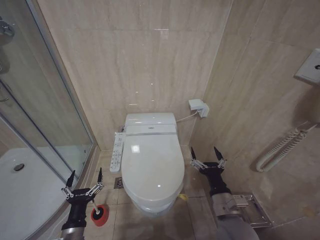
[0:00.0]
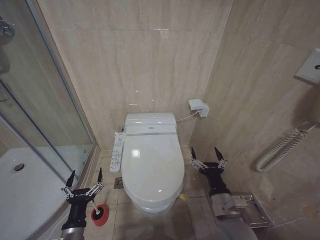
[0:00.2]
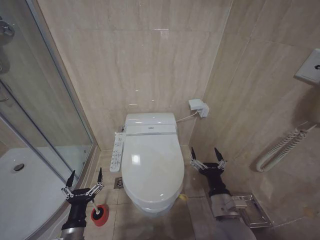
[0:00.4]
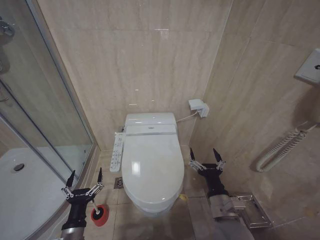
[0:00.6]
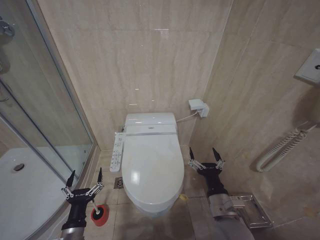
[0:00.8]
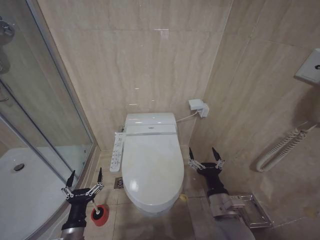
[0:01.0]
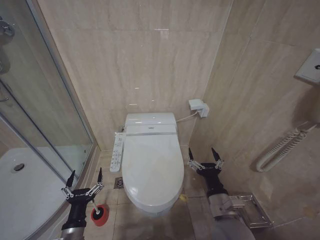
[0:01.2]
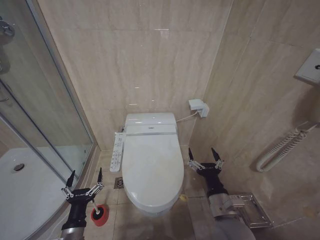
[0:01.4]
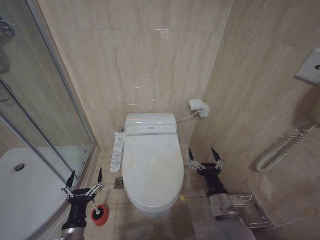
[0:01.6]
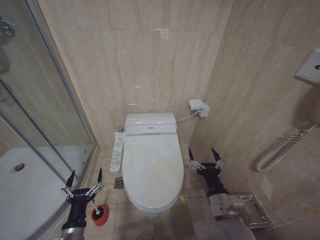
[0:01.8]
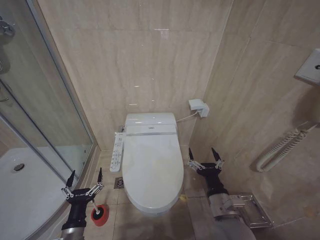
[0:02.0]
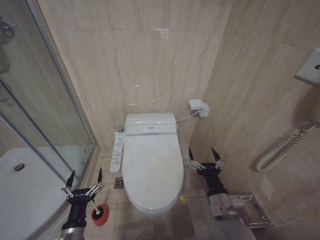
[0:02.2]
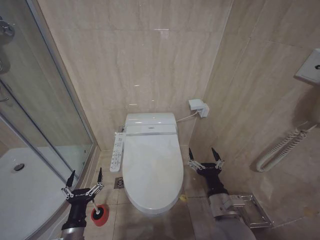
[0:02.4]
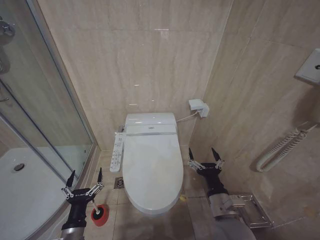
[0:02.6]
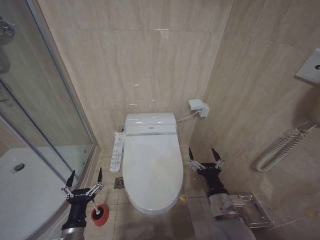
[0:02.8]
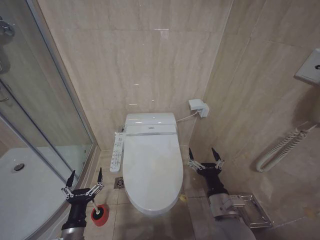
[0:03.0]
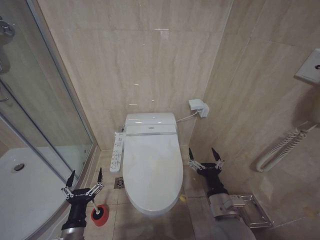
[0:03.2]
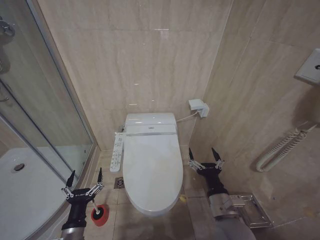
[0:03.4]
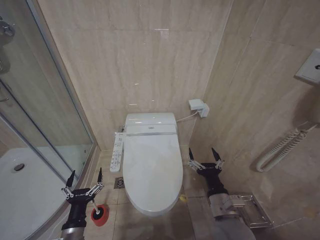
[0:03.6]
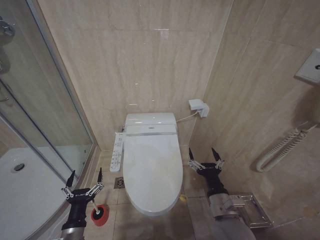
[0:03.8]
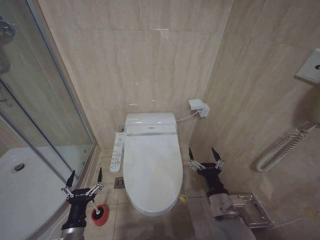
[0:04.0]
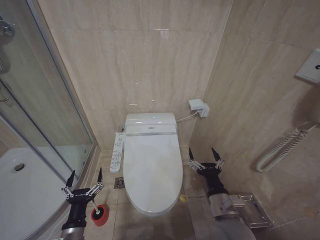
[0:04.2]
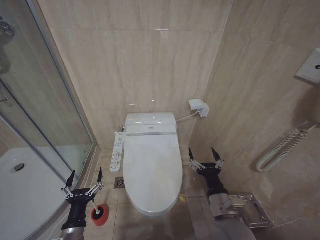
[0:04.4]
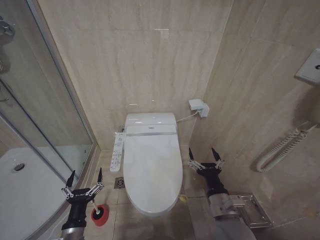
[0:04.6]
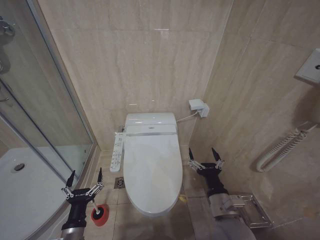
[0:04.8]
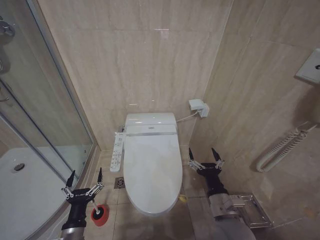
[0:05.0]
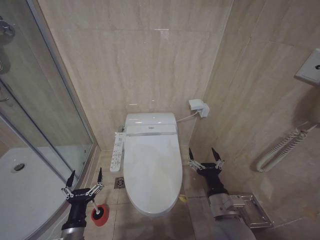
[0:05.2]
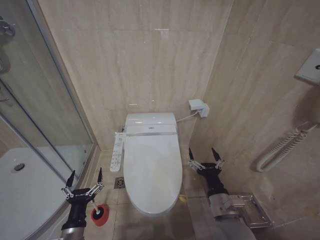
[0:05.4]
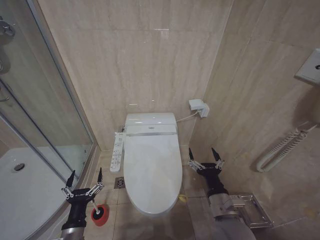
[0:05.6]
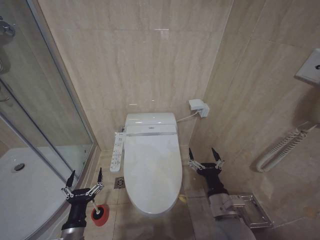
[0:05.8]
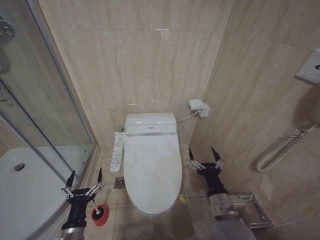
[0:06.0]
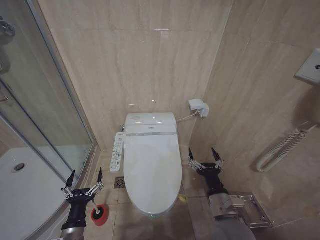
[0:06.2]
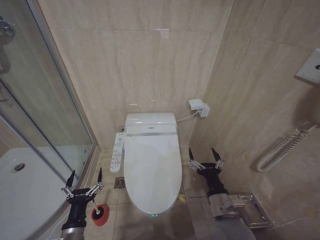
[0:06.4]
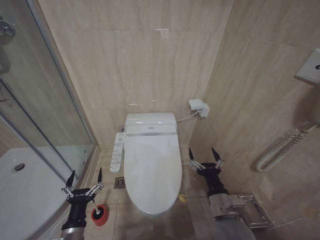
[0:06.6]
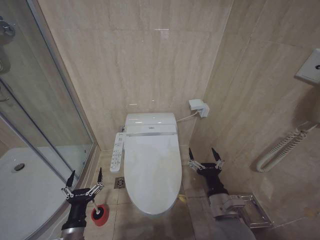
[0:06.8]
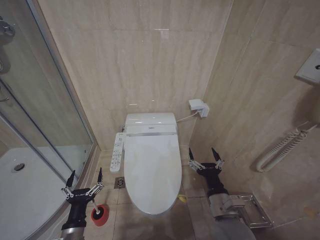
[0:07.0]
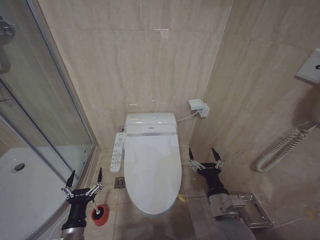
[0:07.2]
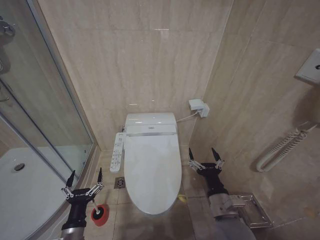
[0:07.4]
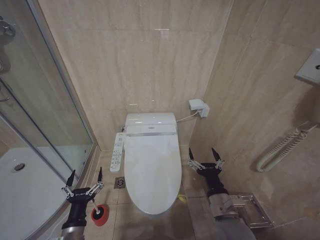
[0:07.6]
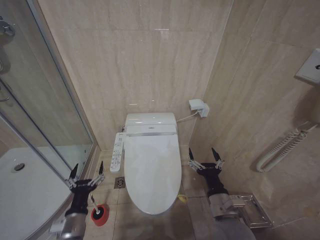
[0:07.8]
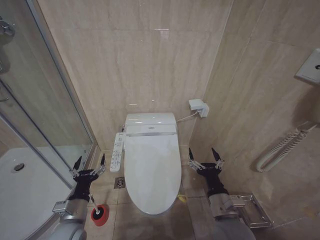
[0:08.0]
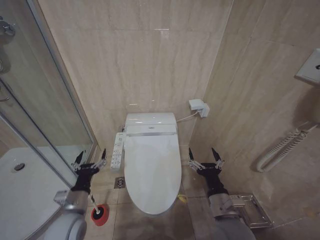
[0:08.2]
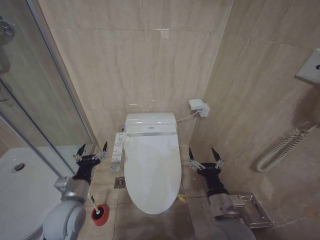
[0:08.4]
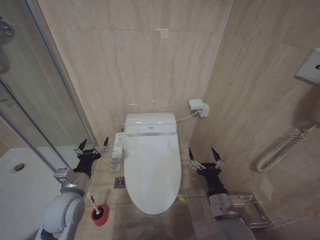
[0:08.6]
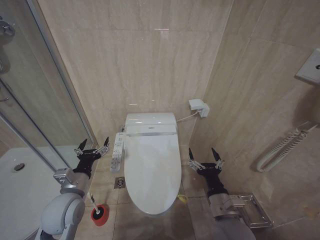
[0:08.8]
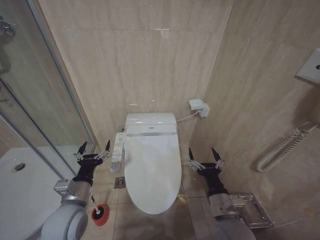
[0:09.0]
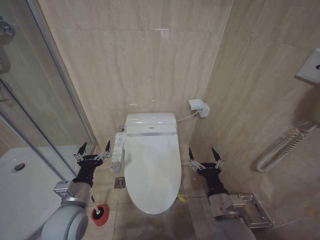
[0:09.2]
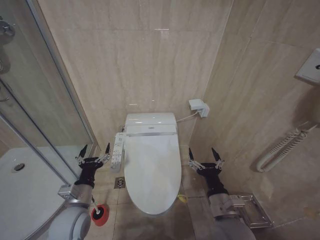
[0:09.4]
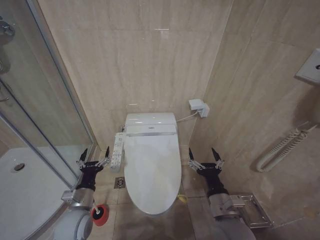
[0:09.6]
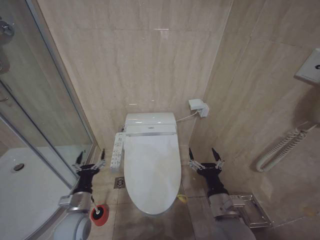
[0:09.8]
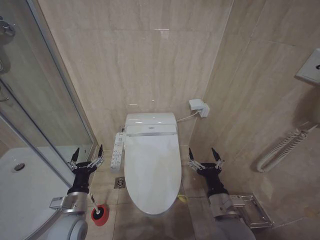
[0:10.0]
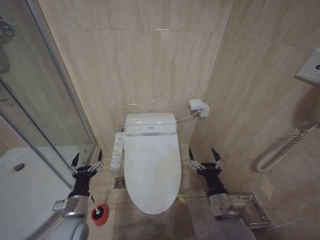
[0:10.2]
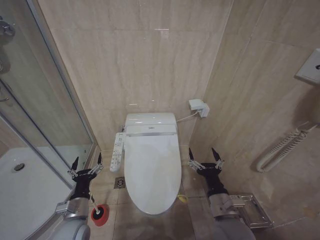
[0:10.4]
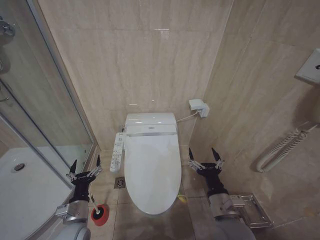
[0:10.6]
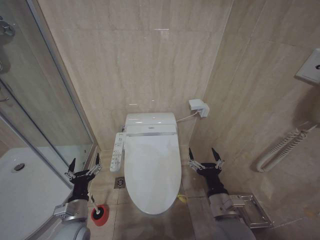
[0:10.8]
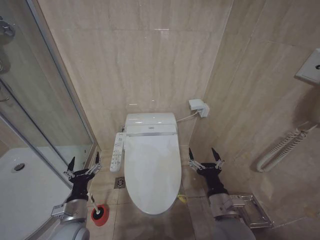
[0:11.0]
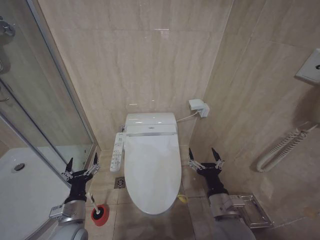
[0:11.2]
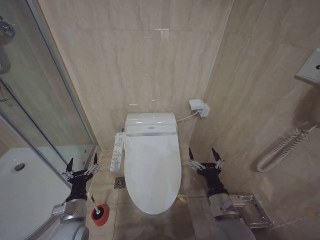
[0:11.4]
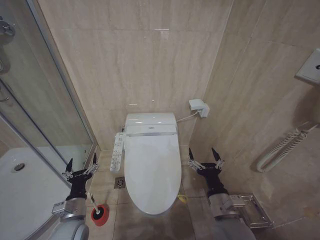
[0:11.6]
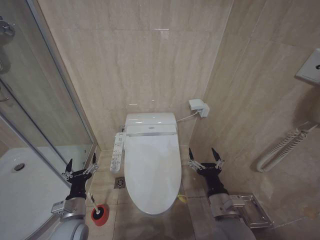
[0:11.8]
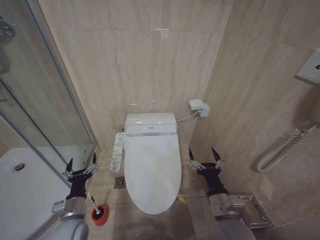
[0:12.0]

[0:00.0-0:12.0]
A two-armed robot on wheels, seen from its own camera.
Task of the whole recording: Open the toilet lid, clean the toilet bowl with a toilet brush, close the toilet lid, and flush.
0:00.0 to 0:07.6: Both grippers stay about where they are.
0:07.6 to 0:09.0: The left gripper goes roughly 15 cm upward and forward.
0:09.0 to 0:10.4: The left gripper travels downward by about 10 cm.
0:10.4 to 0:12.0: The grippers stay close to where they were, moving slightly.

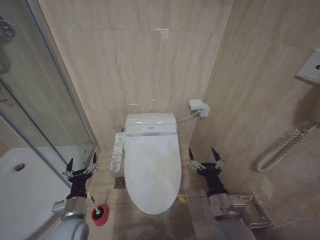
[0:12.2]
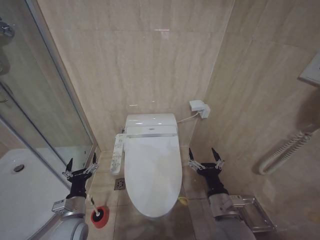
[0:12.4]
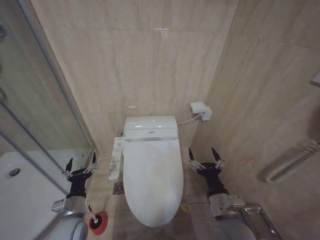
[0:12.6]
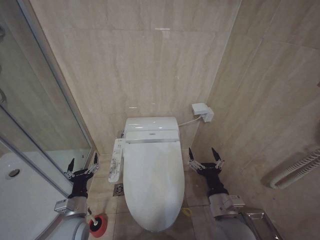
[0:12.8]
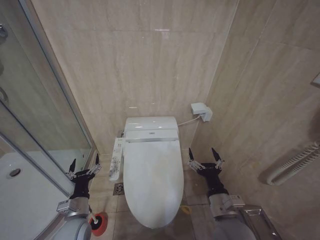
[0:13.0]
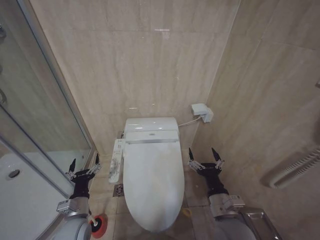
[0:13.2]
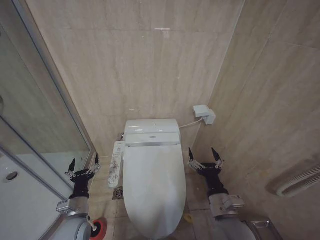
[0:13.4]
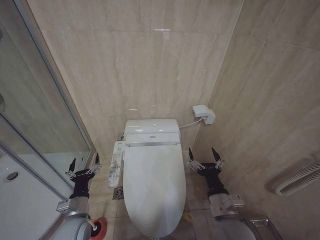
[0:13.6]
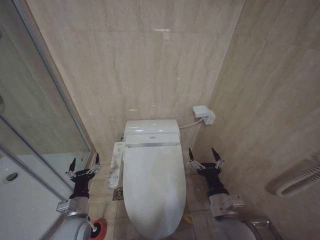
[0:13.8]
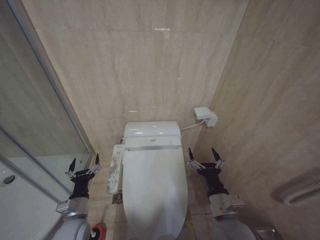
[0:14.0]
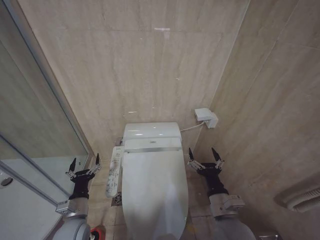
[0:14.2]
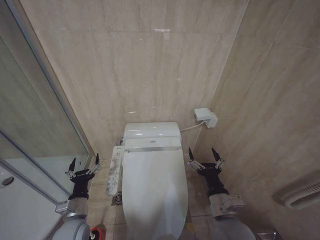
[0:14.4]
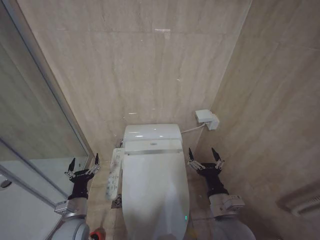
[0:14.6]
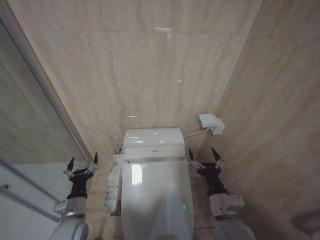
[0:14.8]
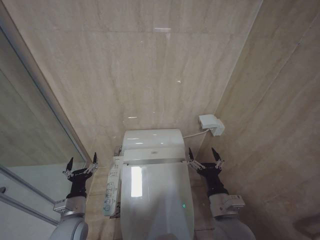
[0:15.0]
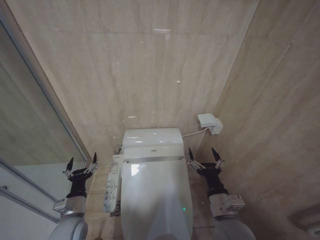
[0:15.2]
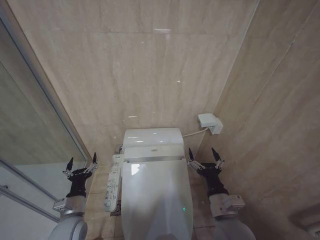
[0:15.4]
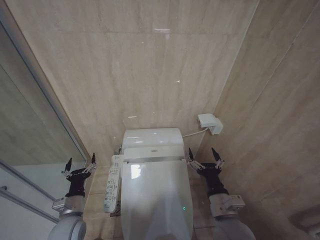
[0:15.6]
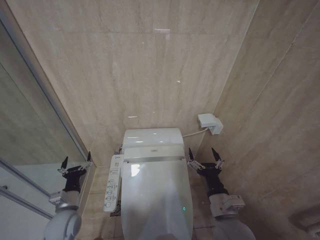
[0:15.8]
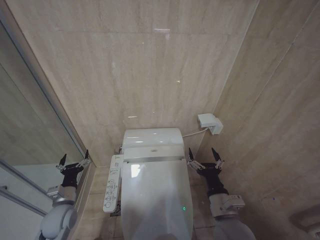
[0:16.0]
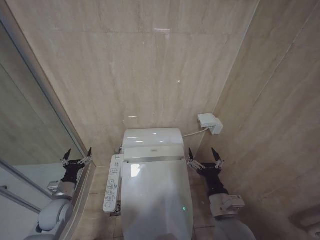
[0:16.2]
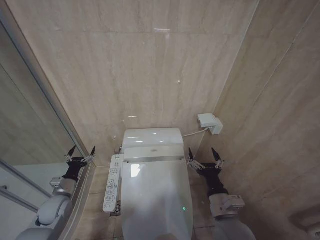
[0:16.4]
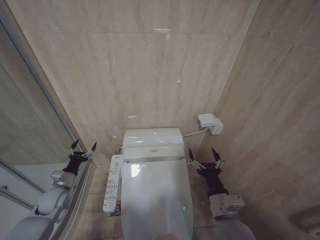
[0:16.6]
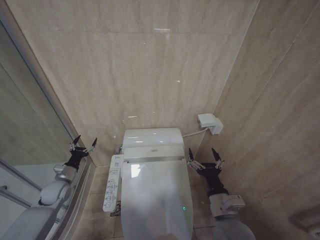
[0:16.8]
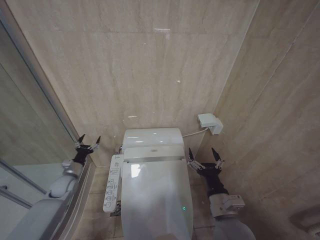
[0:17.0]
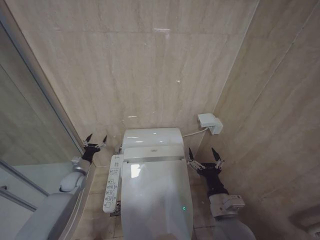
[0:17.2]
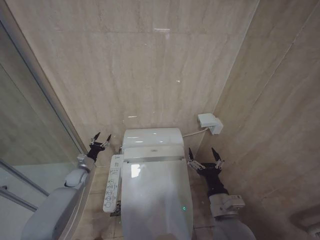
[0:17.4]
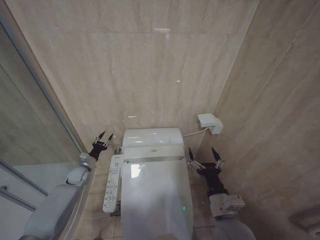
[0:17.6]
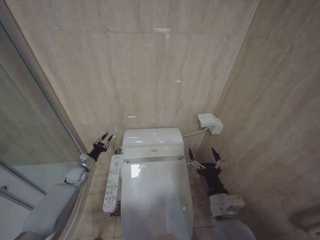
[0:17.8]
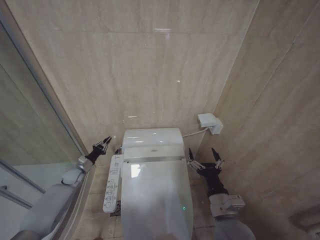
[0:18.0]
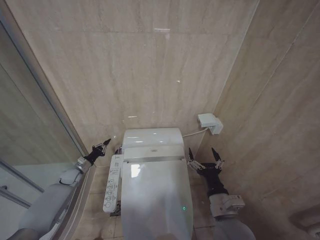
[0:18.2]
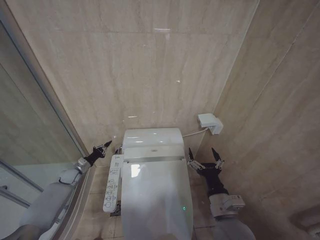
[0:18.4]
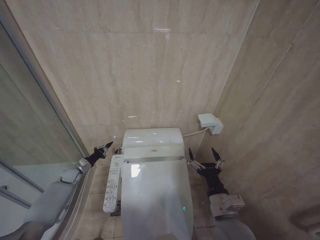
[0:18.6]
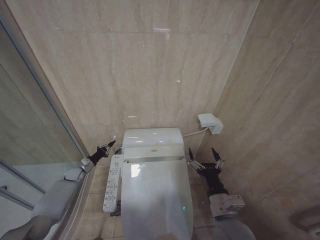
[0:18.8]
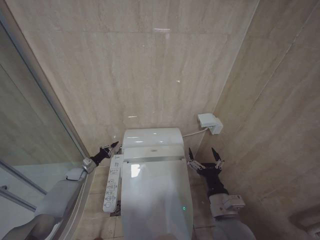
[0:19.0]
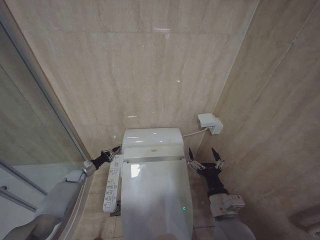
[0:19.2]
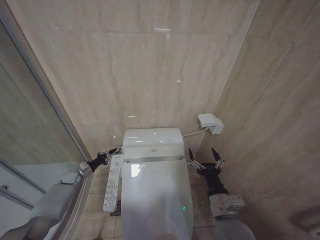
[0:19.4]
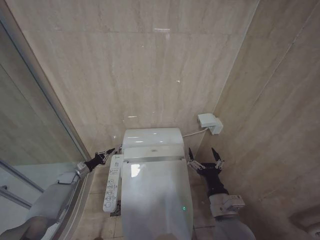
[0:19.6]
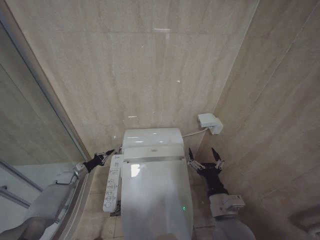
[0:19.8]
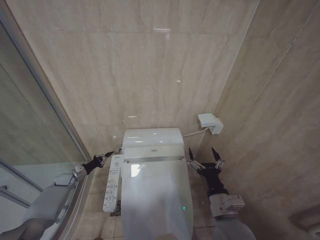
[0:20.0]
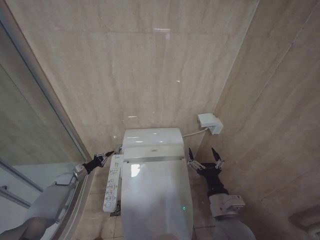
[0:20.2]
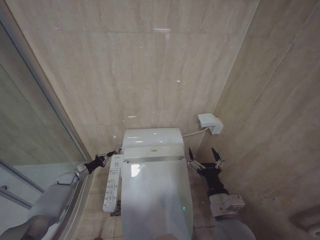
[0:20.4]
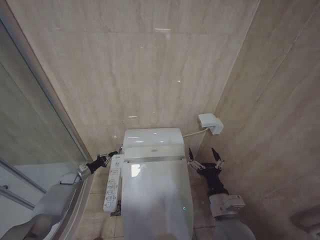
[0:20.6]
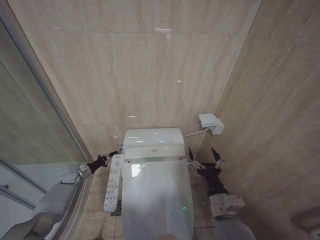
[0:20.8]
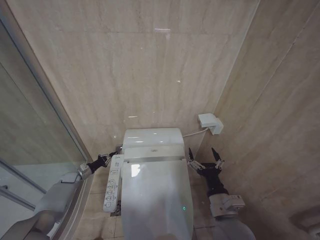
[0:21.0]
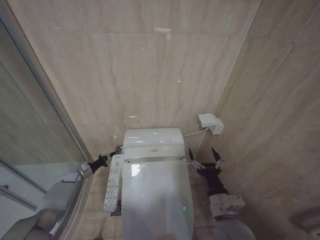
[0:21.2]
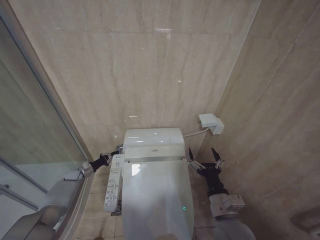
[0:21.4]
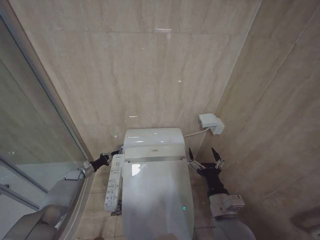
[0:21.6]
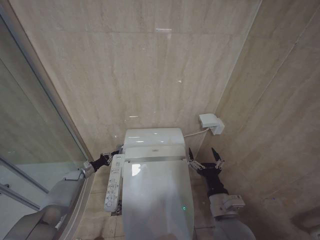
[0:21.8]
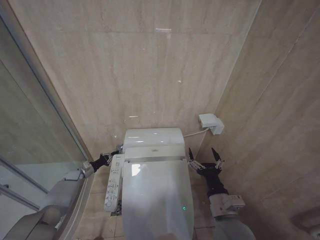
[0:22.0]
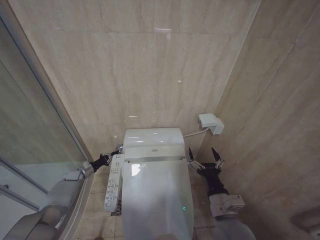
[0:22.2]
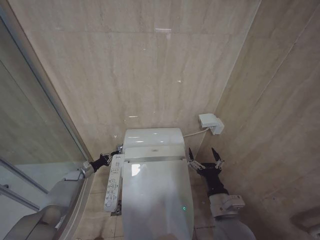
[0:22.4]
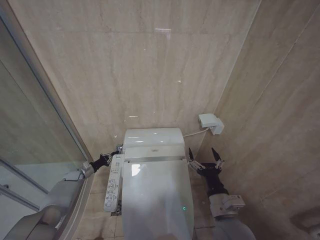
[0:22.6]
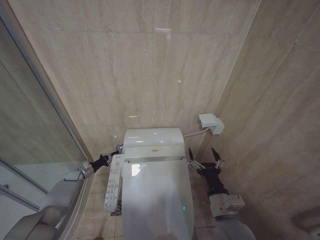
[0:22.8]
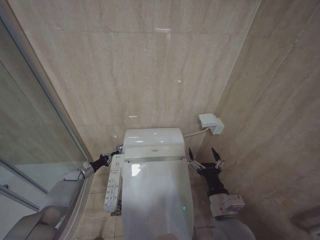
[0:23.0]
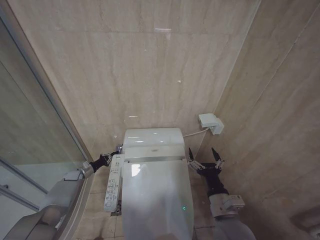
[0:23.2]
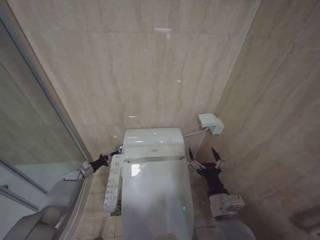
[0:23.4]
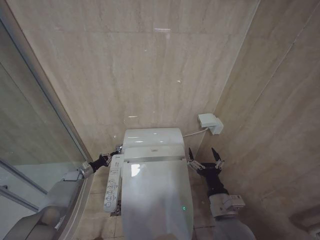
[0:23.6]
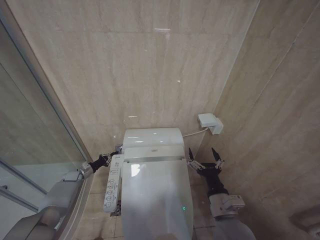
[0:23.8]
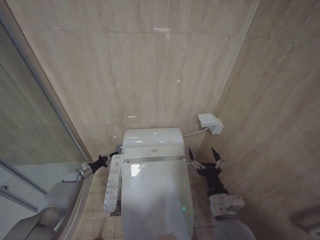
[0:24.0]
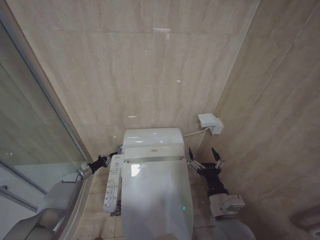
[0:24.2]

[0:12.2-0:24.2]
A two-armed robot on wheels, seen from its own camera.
Task of the whole recording: Open the toilet lid, clean the toilet bowl with a toilet brush, close the toilet lid, and flush.
0:12.2 to 0:15.2: Both grippers stay put.
0:15.2 to 0:16.6: The left gripper goes some 15 cm to the left and forward.
0:16.6 to 0:18.2: The left gripper shifts some 15 cm forward, and closes.
0:18.2 to 0:19.8: The left gripper changes place by some 5 cm.
0:19.8 to 0:21.2: The grippers make only small movements.
0:21.2 to 0:24.2: Both grippers stay put.
